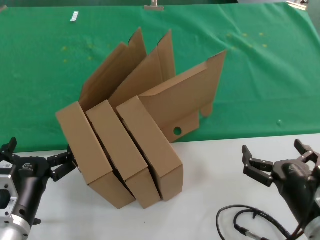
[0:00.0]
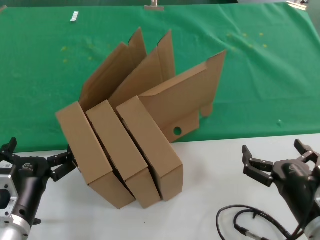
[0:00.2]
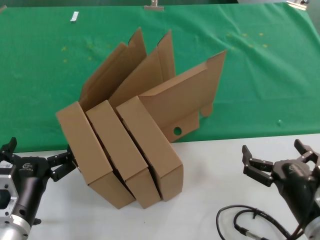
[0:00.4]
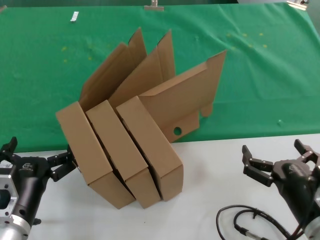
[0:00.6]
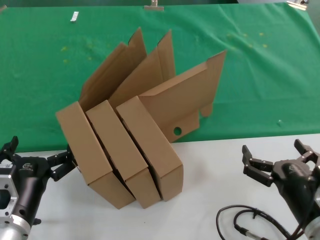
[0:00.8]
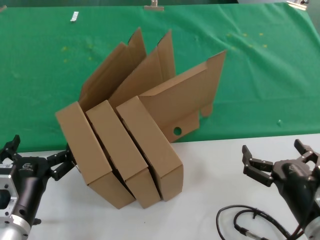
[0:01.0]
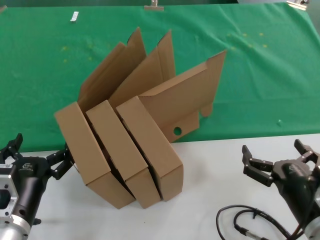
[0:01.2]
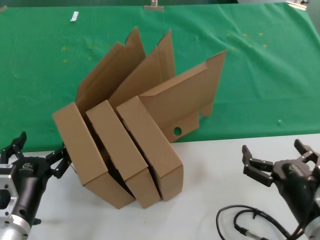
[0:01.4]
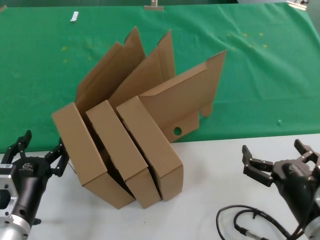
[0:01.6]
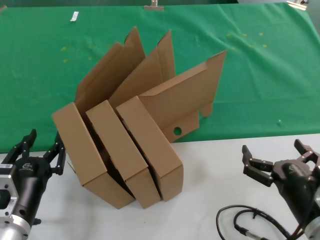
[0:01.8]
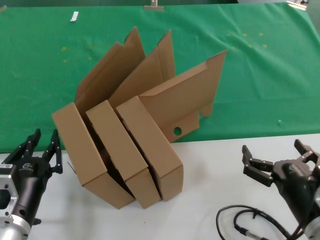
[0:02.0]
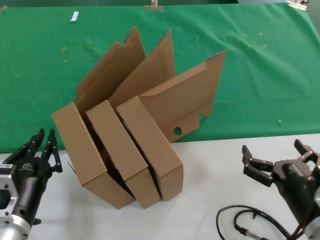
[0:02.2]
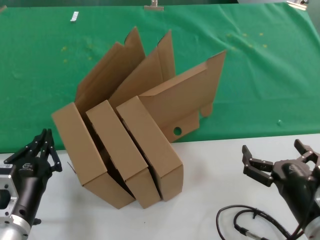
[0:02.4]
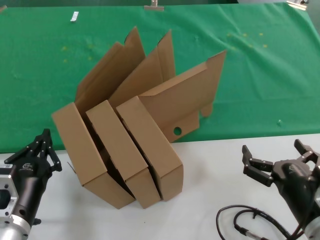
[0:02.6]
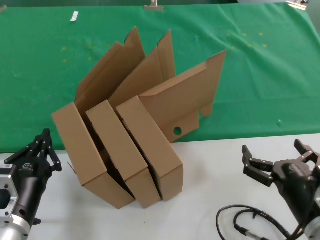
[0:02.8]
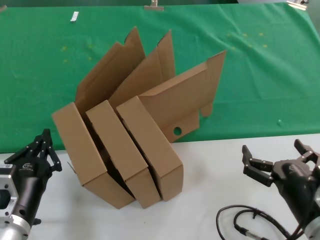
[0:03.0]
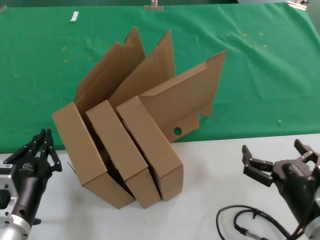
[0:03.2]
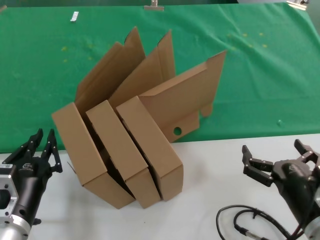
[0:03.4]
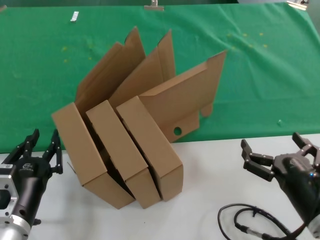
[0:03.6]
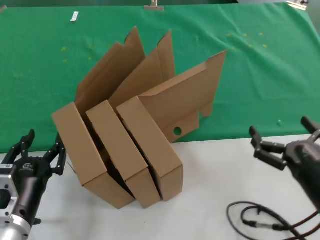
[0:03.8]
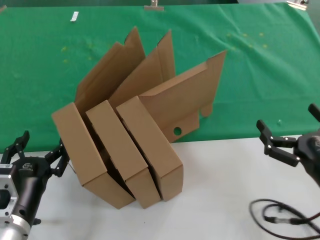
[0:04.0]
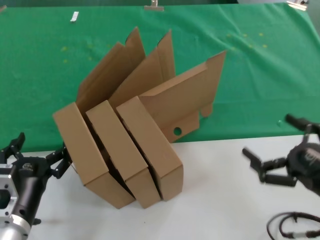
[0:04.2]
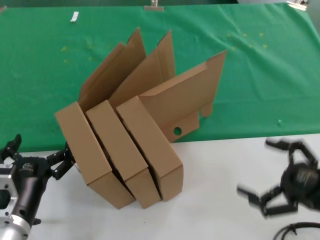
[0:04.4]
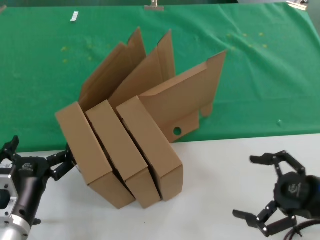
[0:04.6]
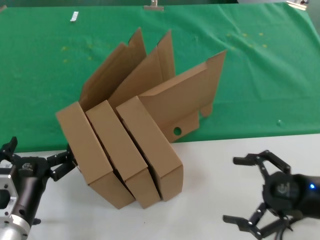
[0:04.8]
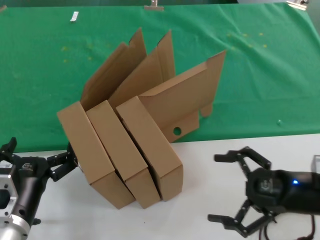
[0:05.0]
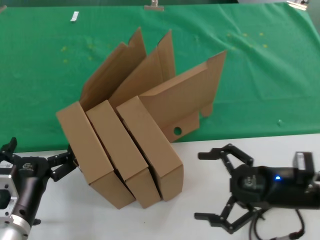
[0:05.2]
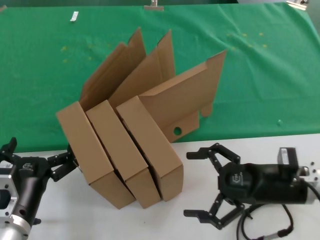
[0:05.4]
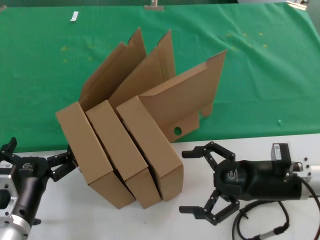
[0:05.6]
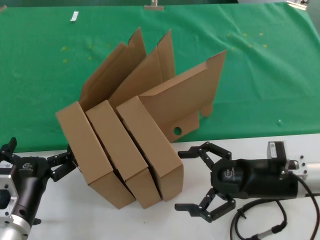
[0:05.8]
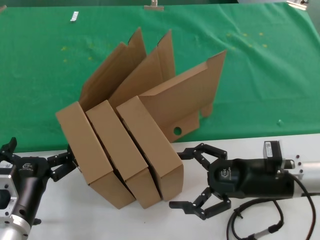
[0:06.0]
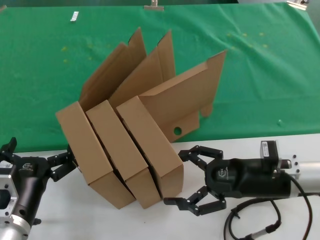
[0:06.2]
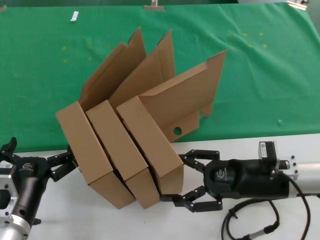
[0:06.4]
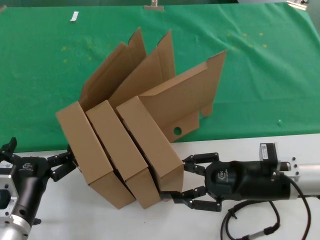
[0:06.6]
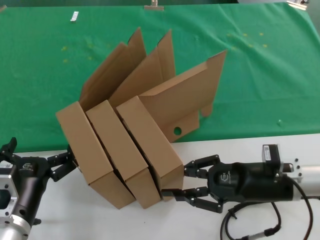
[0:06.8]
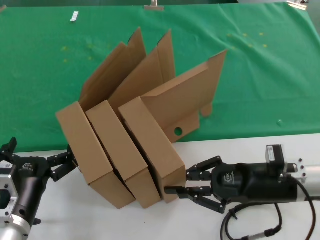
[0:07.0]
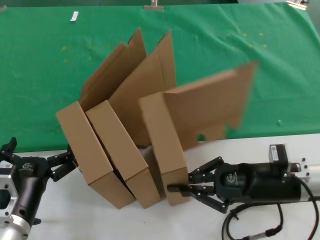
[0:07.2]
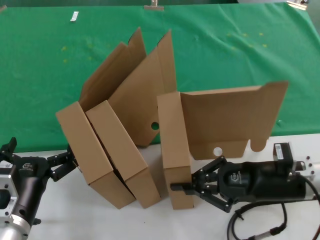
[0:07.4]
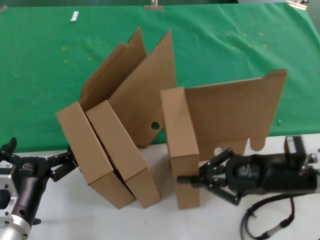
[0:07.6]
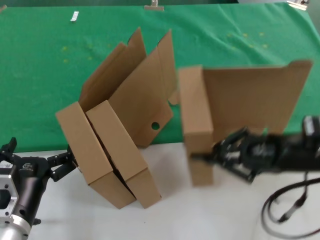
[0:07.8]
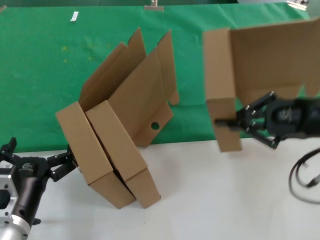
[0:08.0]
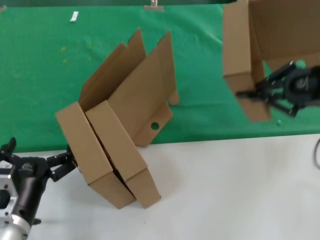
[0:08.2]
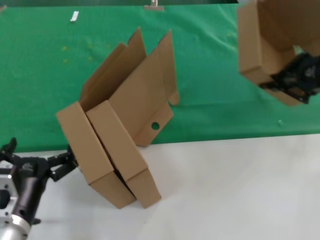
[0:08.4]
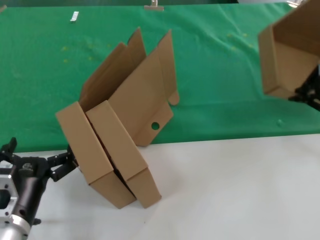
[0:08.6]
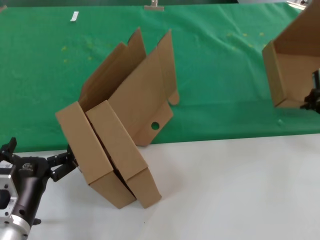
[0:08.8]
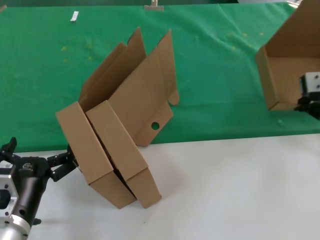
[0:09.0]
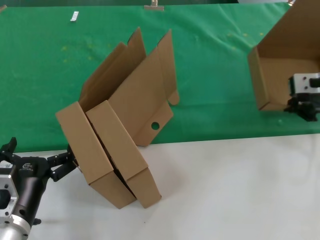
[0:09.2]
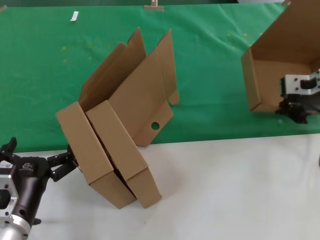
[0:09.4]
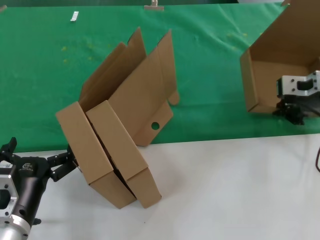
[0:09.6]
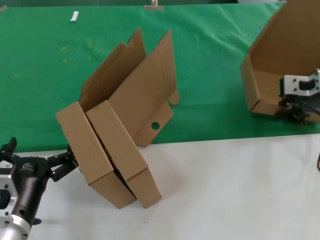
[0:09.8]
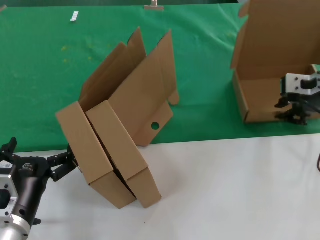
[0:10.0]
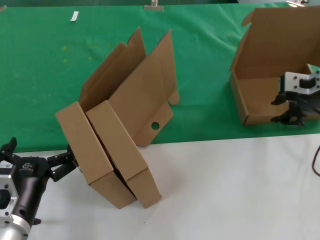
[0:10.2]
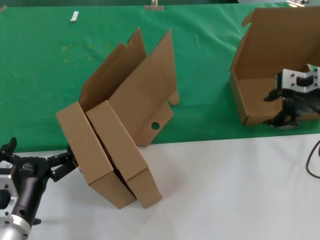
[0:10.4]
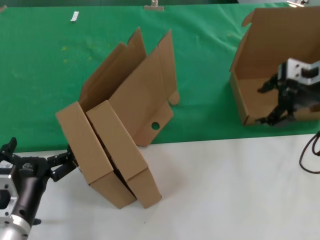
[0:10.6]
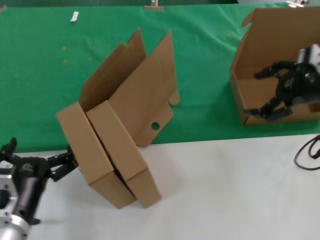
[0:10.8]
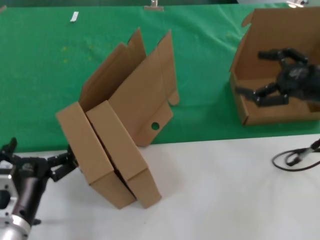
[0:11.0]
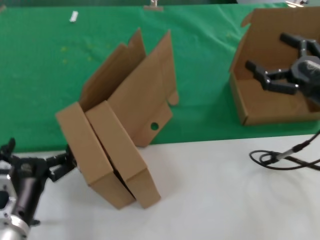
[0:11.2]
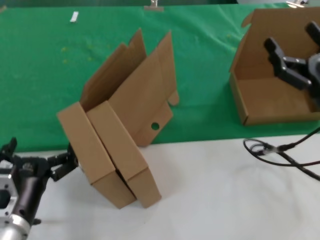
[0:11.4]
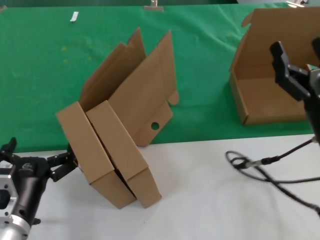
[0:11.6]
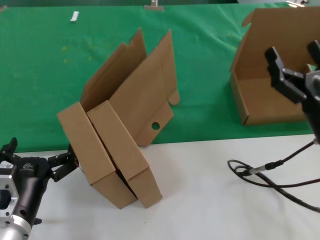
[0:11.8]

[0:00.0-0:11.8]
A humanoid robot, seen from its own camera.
Task of the whole recording: pick up the paper box and put it at the back.
Step, 0:00.0 to 0:07.2: Grasp the paper box.
Step, 0:07.4 to 0:10.0: Place the paper box on the table.
0:00.0 to 0:03.0: The two hands keep their place.
0:03.0 to 0:04.4: The right hand shifts some 15 cm to the right and upward.
0:04.4 to 0:06.0: The right hand is displaced forward and to the left by roughly 15 cm.
0:06.0 to 0:07.4: There are only small adjustments of the hands.
0:07.4 to 0:08.8: The right hand shifts approximately 20 cm upward.
0:08.8 to 0:10.4: The right hand heads to the left, covering roughly 5 cm.
0:10.4 to 0:11.8: The right hand travels downward and backward by roughly 20 cm.

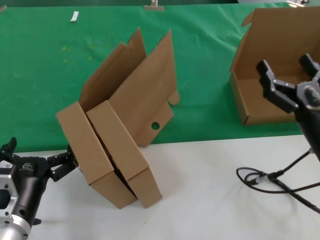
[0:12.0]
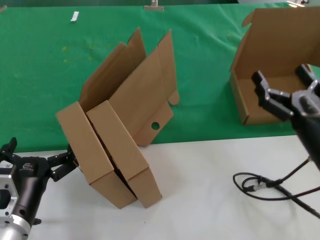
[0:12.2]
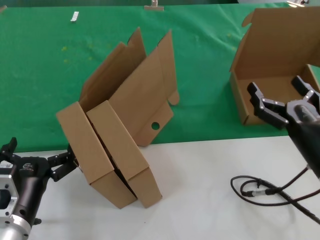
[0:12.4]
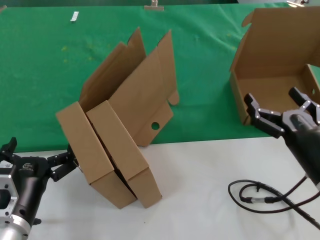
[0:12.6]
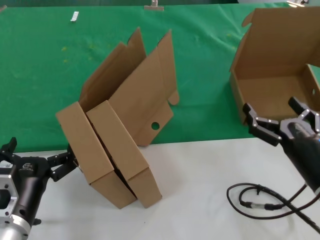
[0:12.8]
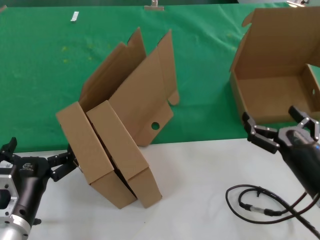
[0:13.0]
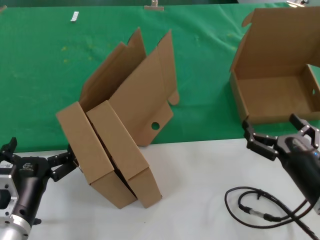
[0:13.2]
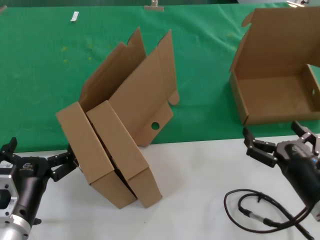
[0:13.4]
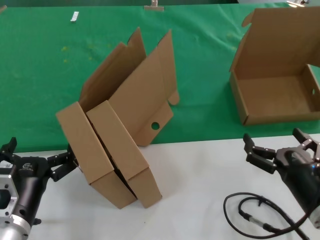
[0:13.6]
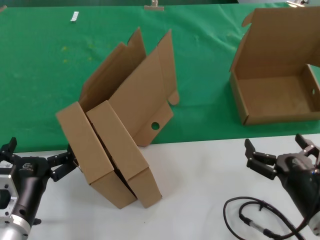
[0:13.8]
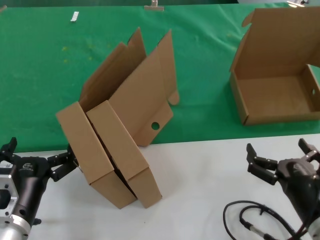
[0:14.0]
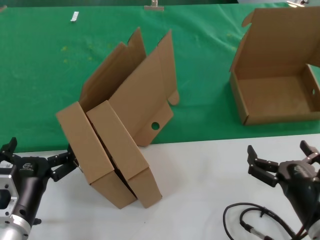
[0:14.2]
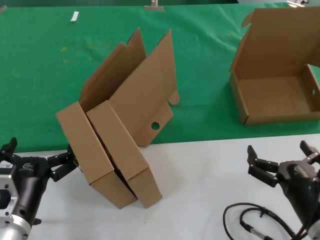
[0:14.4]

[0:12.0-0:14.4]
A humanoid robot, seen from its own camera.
Task of the whole recording: pick up the paper box and put it at the back.
0:12.0 to 0:13.2: The right hand shifts about 5 cm backward.
0:13.2 to 0:14.4: The right hand is displaced backward by about 5 cm.
